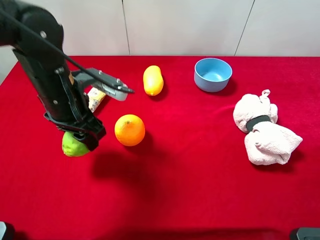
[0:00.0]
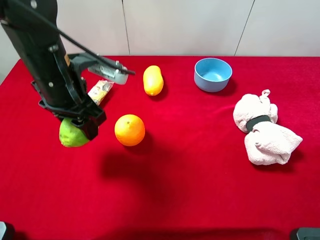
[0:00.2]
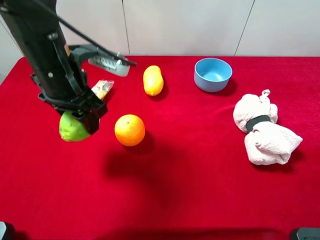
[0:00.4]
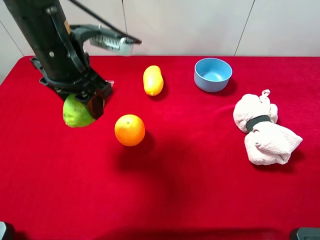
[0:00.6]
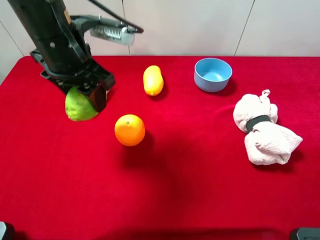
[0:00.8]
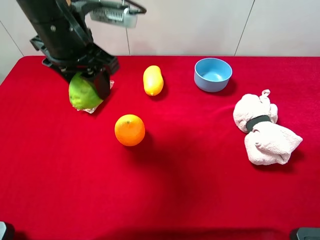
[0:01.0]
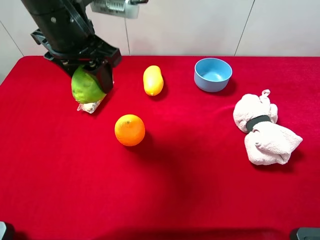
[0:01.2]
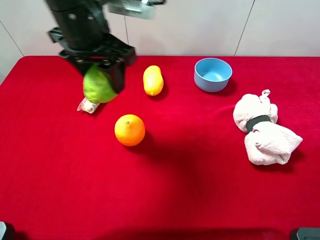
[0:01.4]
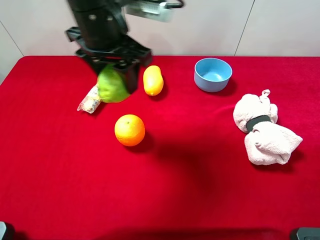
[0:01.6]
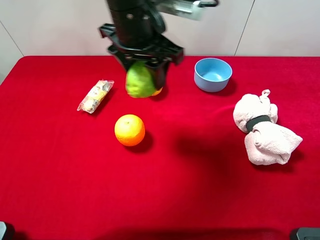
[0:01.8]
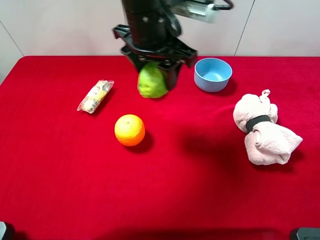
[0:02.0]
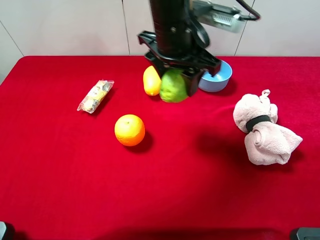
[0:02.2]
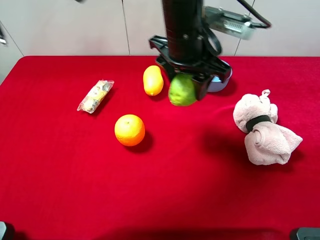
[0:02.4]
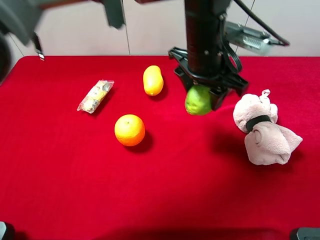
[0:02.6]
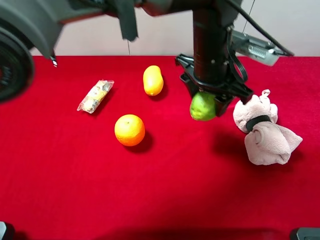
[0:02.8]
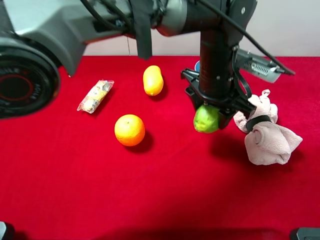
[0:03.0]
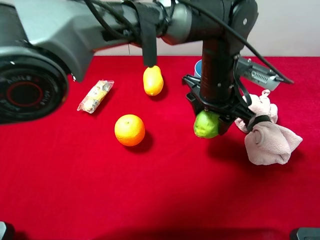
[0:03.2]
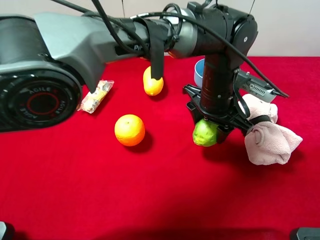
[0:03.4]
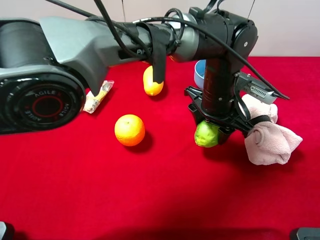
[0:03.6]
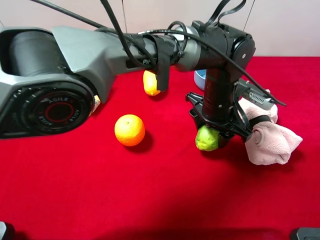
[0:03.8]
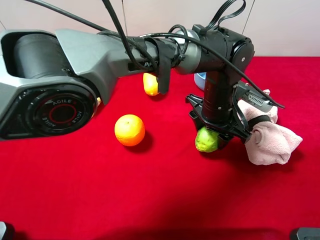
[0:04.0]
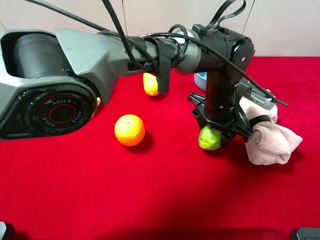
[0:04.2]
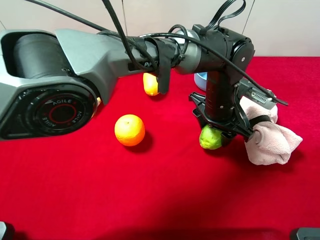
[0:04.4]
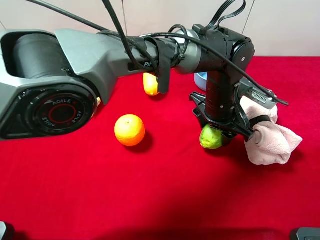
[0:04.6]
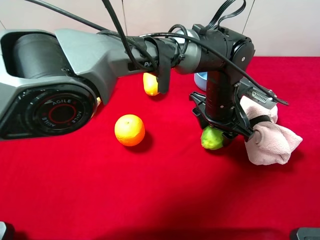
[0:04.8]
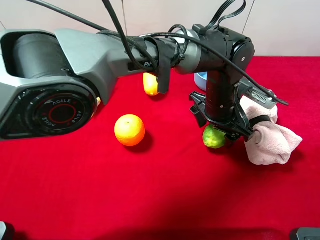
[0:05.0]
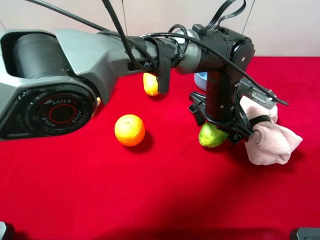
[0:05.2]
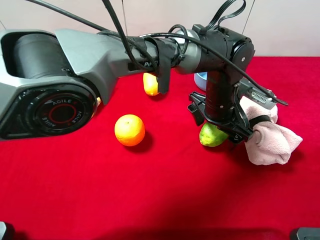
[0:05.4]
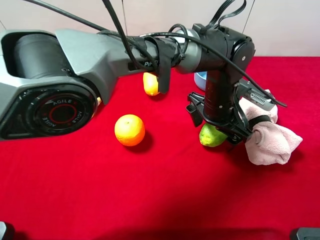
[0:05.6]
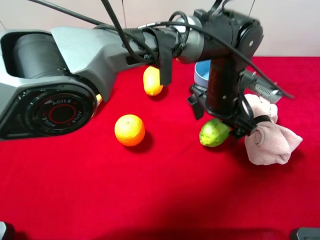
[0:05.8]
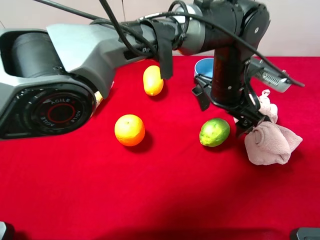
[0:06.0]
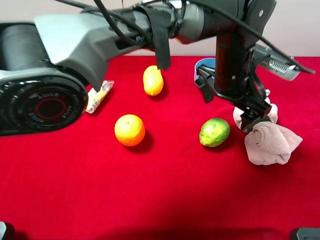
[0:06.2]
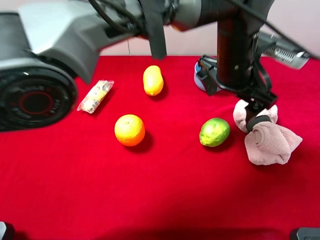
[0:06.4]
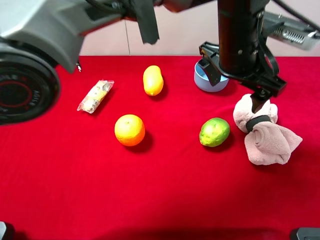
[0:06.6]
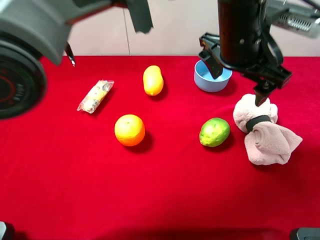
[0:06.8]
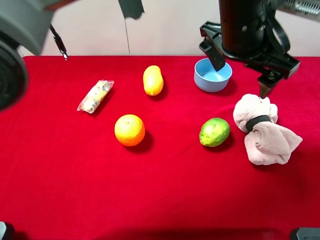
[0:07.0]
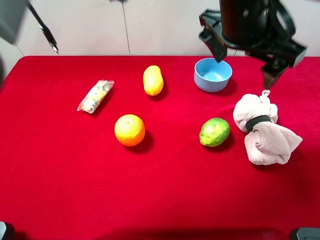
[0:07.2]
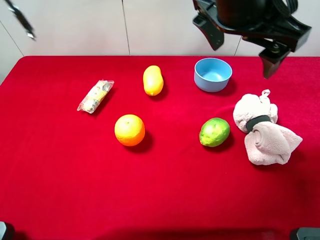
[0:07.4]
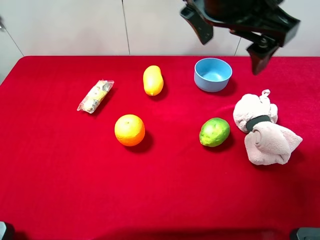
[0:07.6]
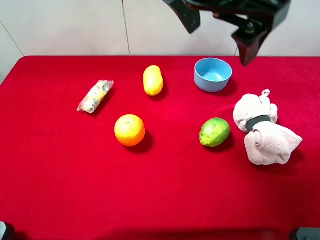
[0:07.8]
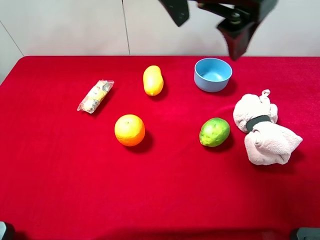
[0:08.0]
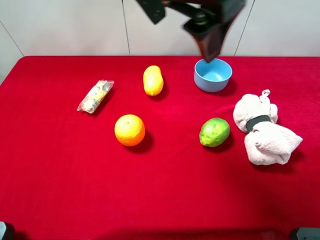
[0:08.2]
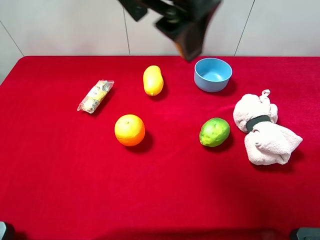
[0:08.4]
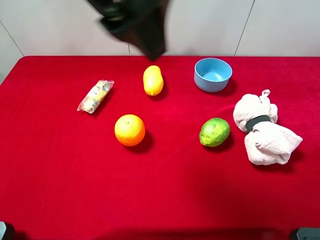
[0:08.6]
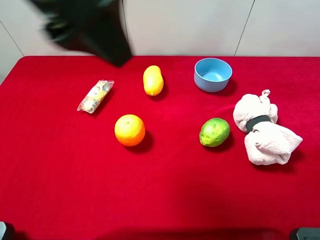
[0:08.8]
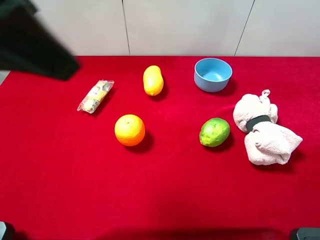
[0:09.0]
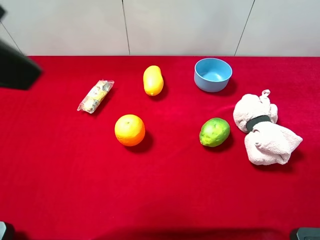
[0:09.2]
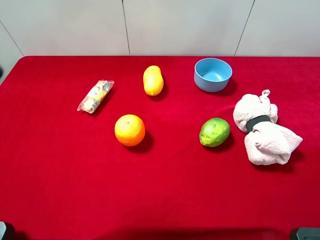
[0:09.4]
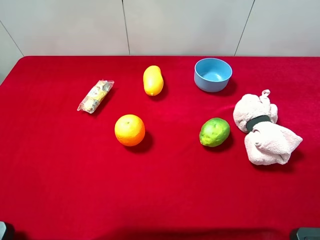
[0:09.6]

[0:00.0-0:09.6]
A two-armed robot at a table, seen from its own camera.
Task of the whole recording: the gripper move the object.
Step, 0:00.0 to 0:06.2: Place the green lemon on the table with the left gripper.
0:00.0 to 0:01.6: The left gripper travels upward and to the right by roughly 15 cm.
0:01.6 to 0:03.2: The left gripper heads to the right and downward, covering about 20 cm.
0:03.2 to 0:04.8: The left gripper is displaced downward by about 5 cm.
0:04.8 to 0:06.4: The left gripper shifts about 10 cm upward, and opens.
0:06.4 to 0:08.0: The left gripper is displaced upward and to the left by some 20 cm.
0:08.0 to 0:09.6: The left gripper moves to the left and backward, about 30 cm.

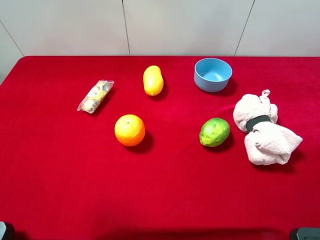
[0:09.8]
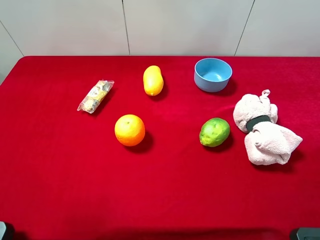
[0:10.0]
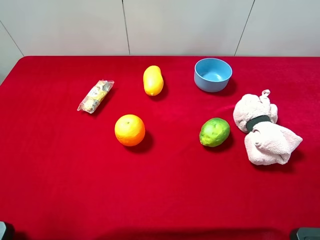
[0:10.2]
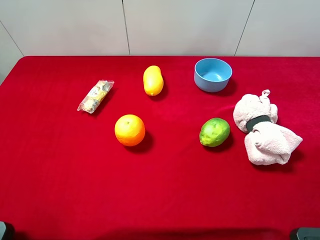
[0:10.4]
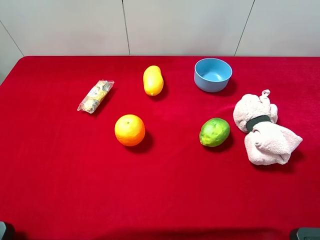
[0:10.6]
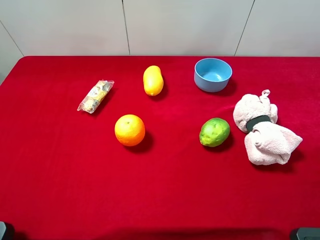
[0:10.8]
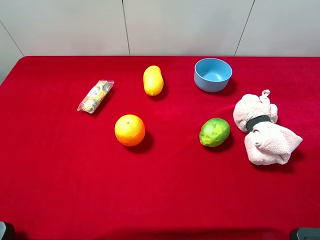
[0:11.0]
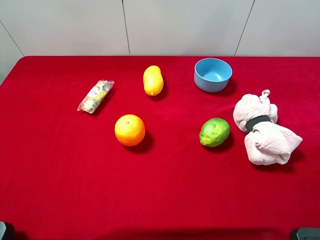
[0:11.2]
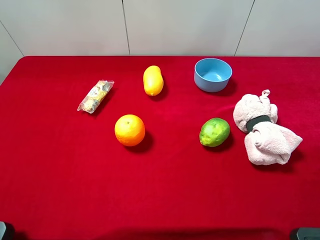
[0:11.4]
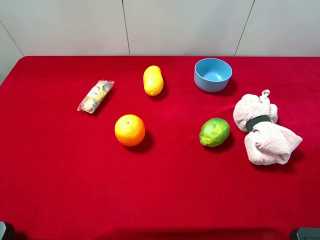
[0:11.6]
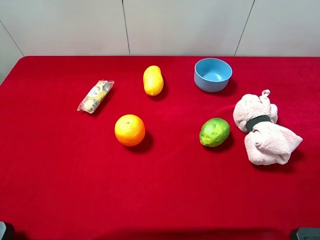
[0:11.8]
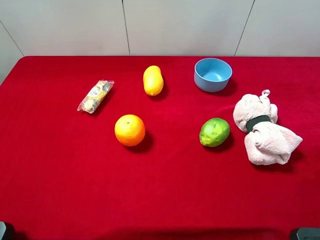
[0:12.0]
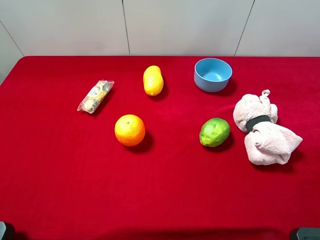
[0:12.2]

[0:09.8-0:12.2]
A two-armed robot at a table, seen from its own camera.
Task of the whole recording: the gripper move the object.
0:11.0 to 0:12.2: Both grippers stay put.

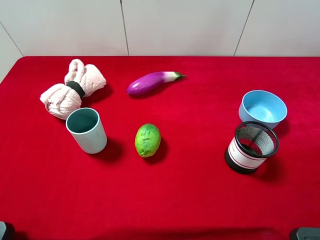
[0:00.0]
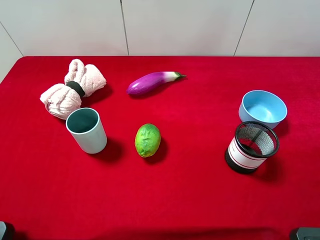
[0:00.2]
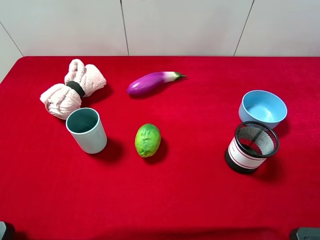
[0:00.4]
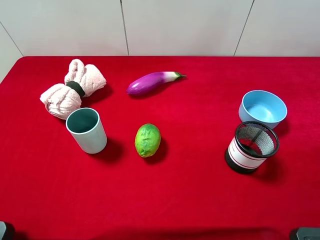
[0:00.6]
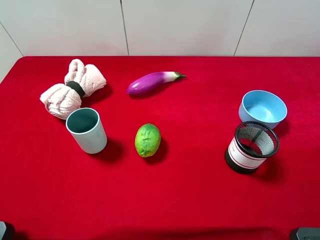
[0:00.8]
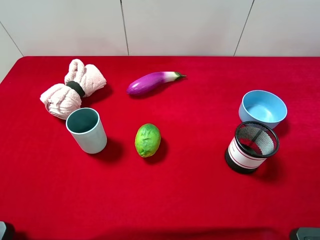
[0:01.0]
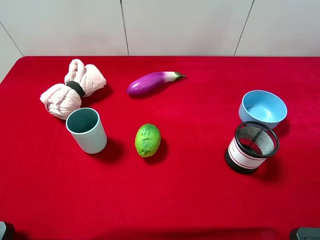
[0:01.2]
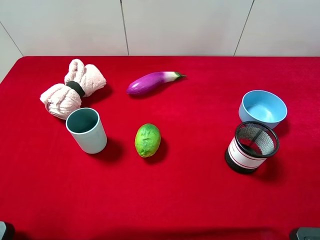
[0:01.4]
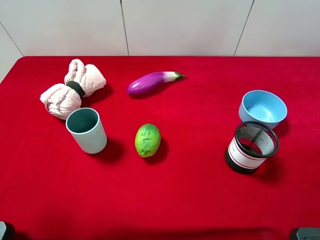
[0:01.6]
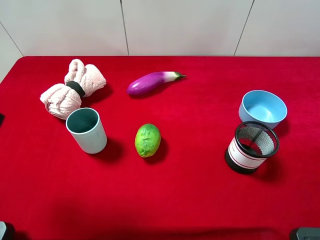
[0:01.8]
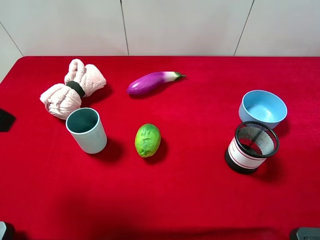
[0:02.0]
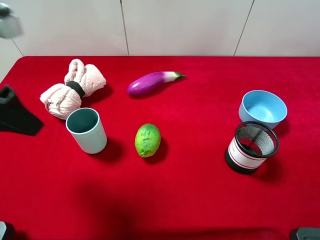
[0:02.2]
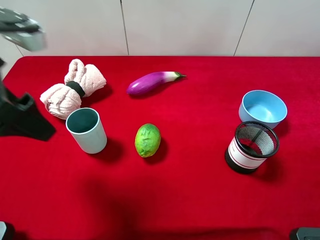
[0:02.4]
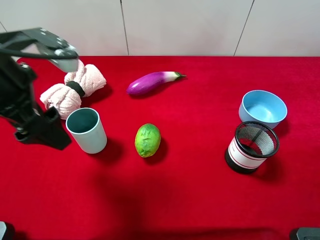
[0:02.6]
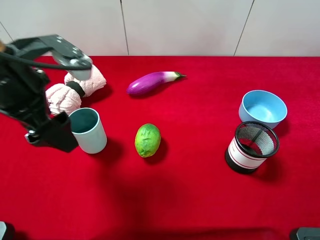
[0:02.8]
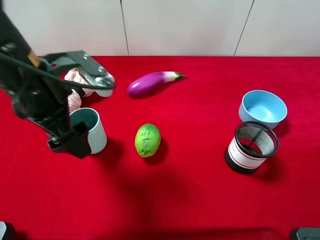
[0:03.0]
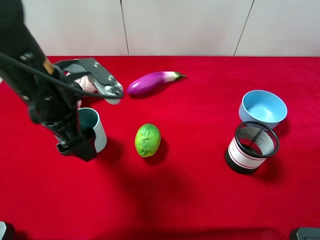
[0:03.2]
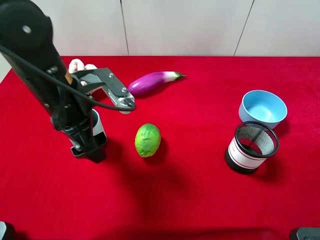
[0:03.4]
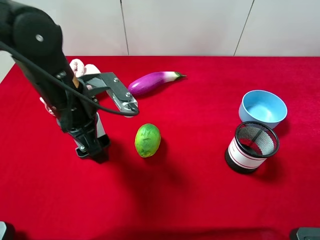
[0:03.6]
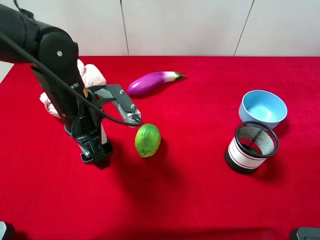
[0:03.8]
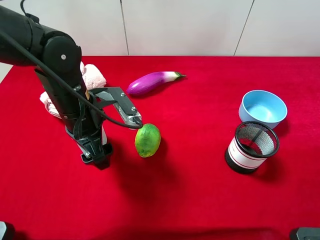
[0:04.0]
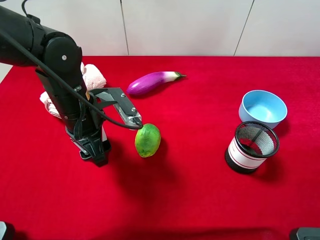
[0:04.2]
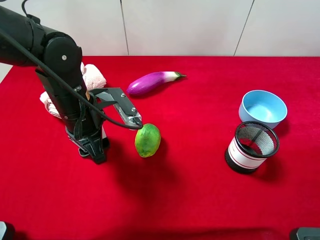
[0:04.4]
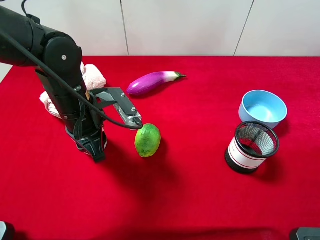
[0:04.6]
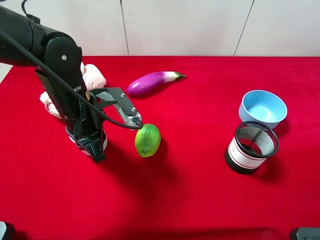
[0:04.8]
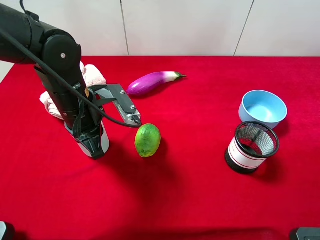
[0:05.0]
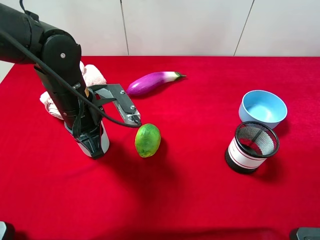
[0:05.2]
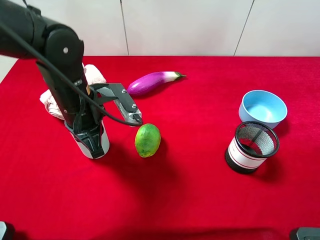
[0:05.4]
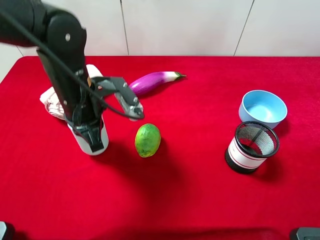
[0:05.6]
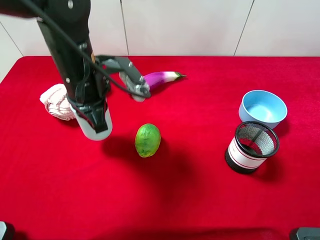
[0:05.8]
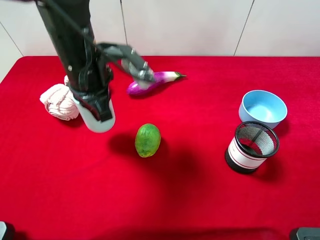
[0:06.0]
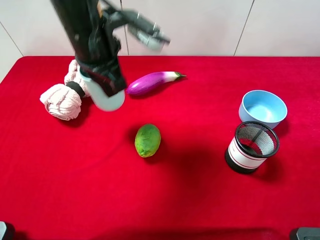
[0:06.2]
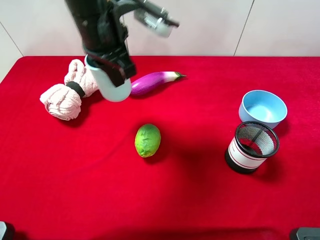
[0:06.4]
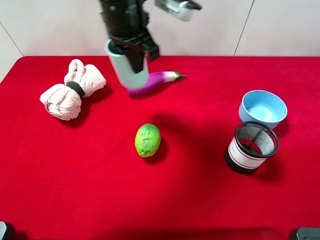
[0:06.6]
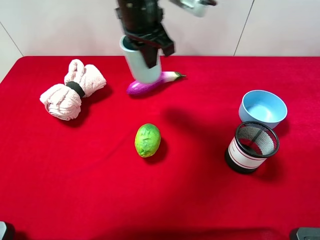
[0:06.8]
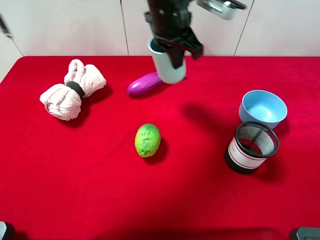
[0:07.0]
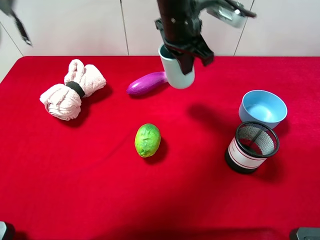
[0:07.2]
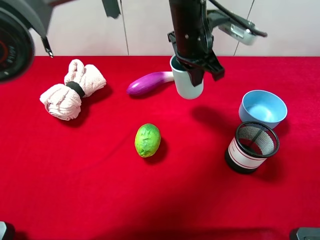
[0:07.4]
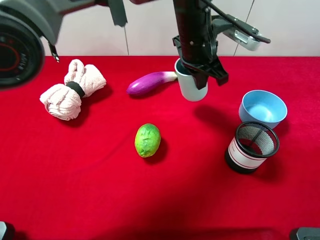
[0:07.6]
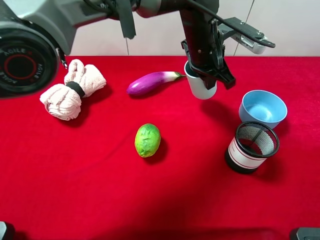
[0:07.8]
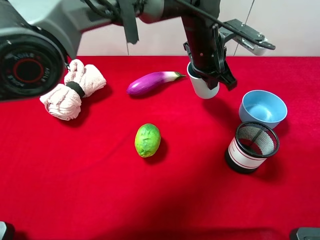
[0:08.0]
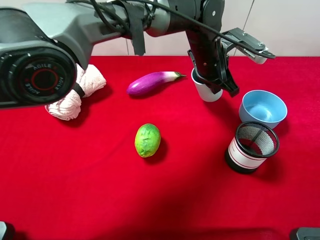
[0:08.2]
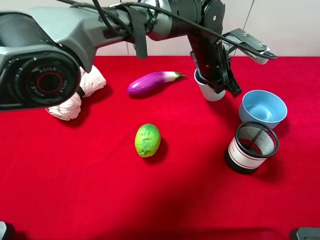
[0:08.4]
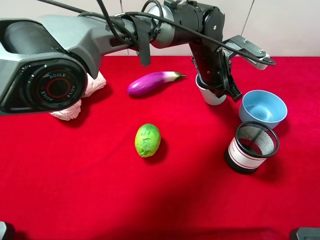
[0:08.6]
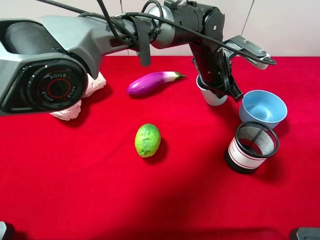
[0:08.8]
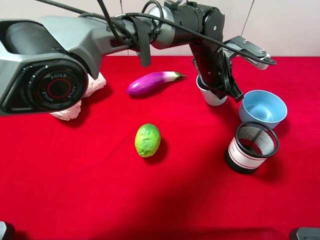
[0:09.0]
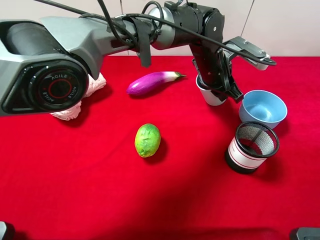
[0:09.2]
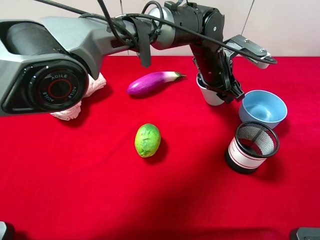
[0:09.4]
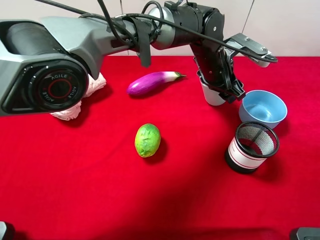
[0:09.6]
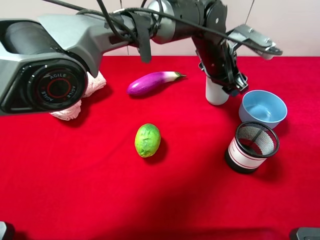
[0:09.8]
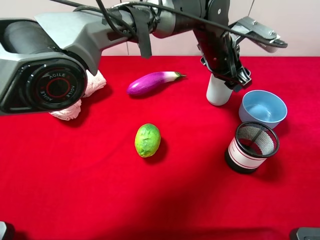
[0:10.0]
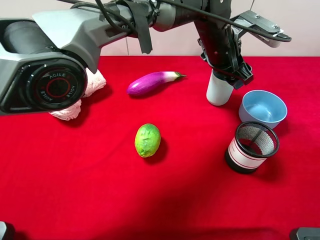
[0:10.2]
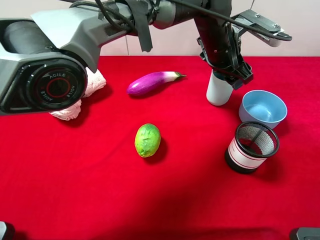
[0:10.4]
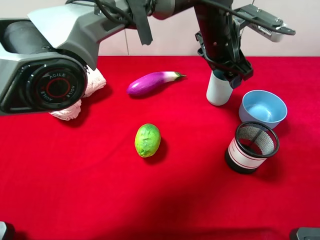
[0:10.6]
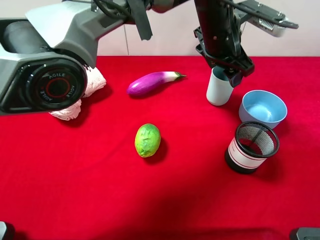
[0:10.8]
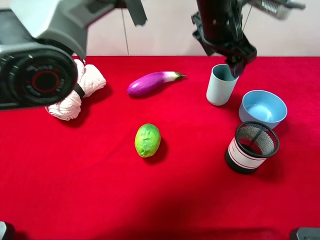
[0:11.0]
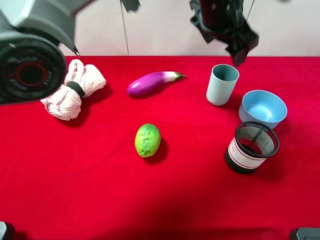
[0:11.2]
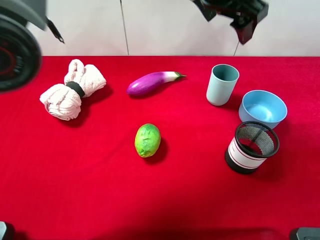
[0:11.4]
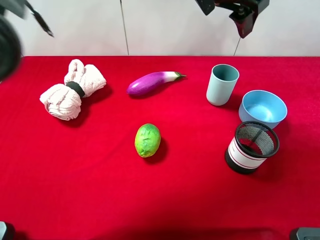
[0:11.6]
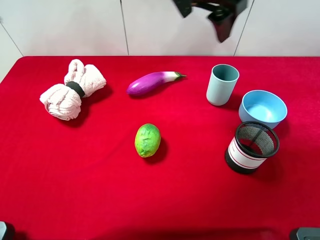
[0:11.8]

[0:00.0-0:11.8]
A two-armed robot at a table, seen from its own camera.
Task of the whole recording: the gripper move the object.
Step, 0:00.0 to 0:05.0: Grasp the blue cup with the left gripper.
Step, 0:05.2 to 0:11.0: Place the blue cup on the table with the left gripper.
0:01.4 to 0:03.0: The left gripper moves forward, to the right and downward, some 20 cm.
0:03.0 to 0:04.4: The left gripper travels downward by approximately 10 cm, and closes.
0:04.4 to 0:06.0: The left gripper is displaced upward by roughly 5 cm, and closes up.
0:06.0 to 0:07.4: The left gripper is displaced to the right and forward by some 20 cm.
0:07.4 to 0:08.8: The left gripper travels downward and to the right by about 10 cm.
0:08.8 to 0:10.4: The left gripper goes some 5 cm upward, and opens.
0:10.4 to 0:11.8: The left gripper goes roughly 15 cm upward and to the left.
